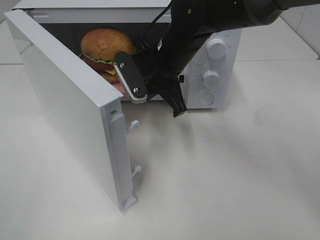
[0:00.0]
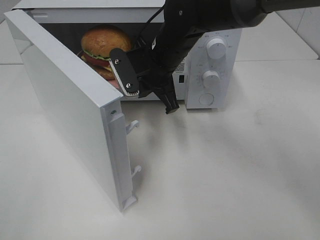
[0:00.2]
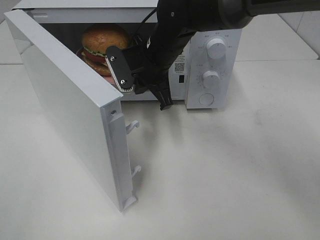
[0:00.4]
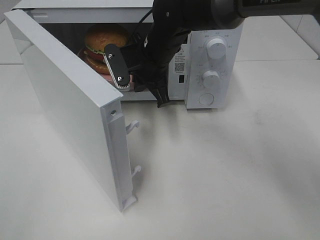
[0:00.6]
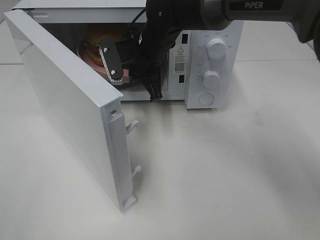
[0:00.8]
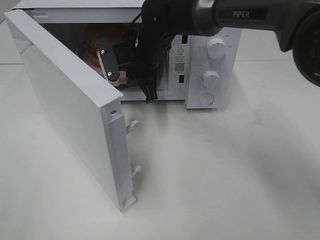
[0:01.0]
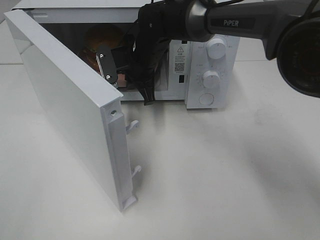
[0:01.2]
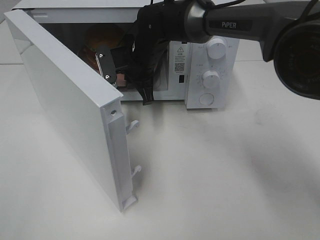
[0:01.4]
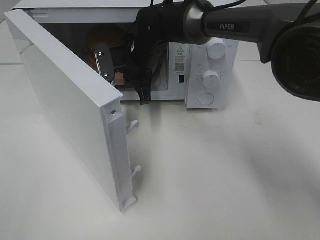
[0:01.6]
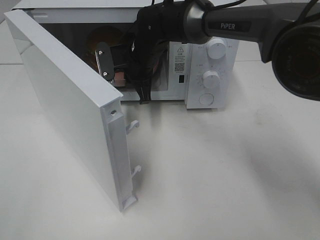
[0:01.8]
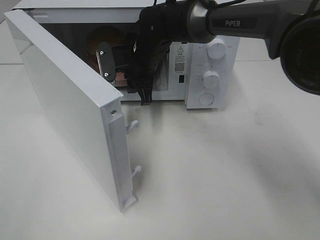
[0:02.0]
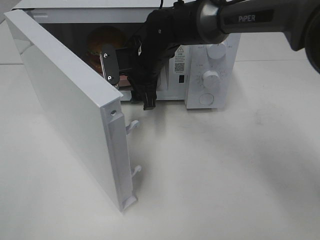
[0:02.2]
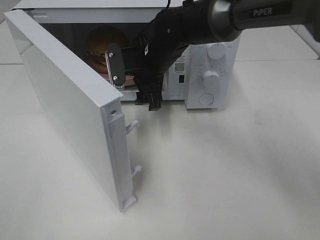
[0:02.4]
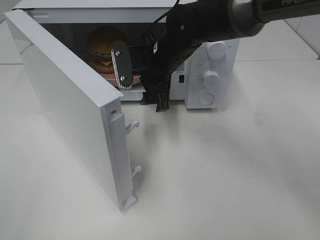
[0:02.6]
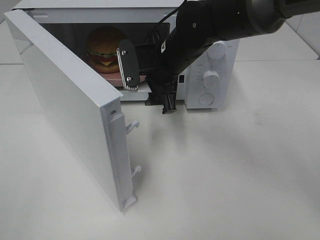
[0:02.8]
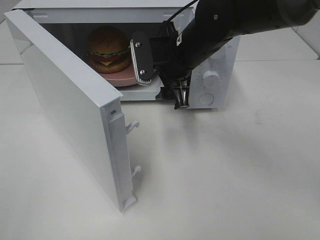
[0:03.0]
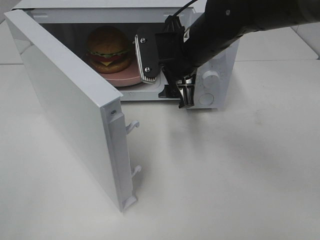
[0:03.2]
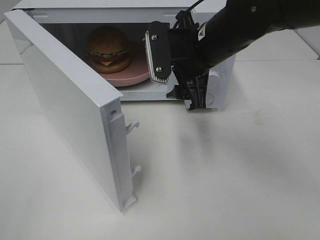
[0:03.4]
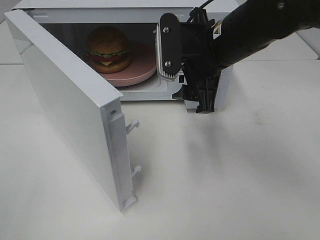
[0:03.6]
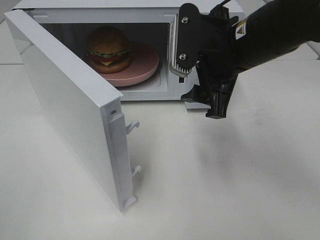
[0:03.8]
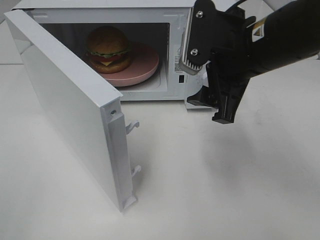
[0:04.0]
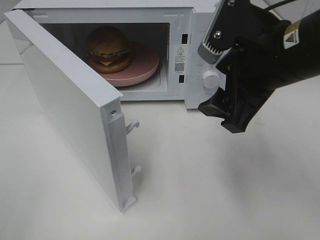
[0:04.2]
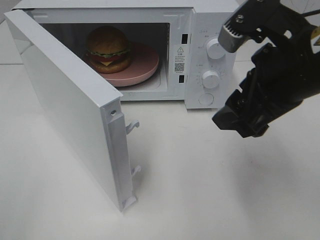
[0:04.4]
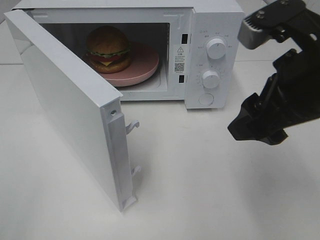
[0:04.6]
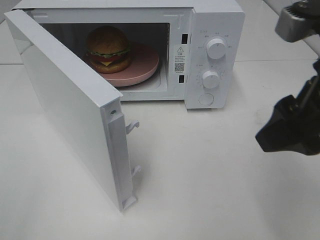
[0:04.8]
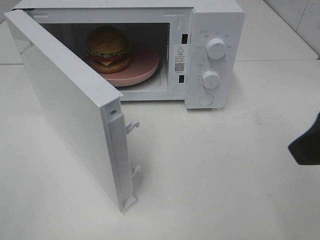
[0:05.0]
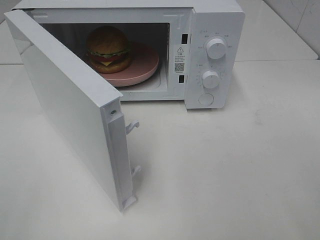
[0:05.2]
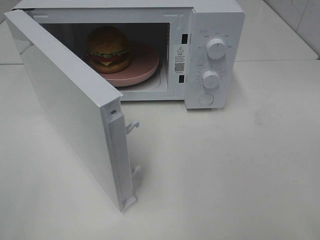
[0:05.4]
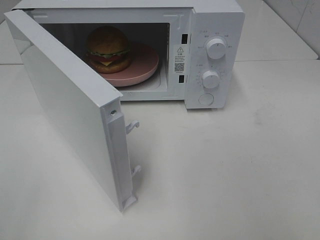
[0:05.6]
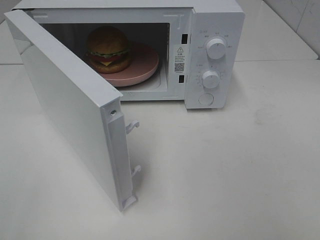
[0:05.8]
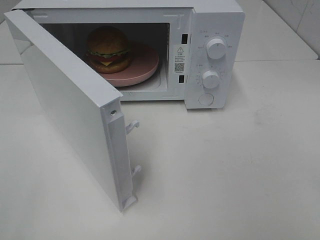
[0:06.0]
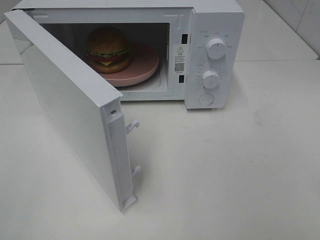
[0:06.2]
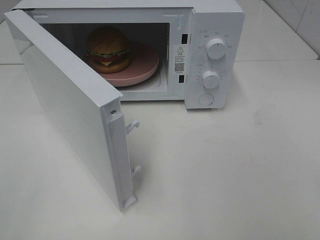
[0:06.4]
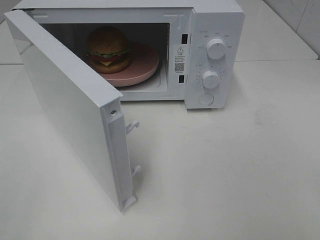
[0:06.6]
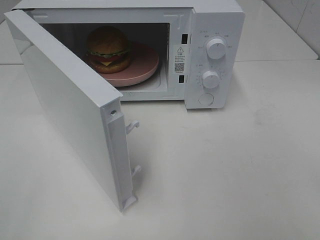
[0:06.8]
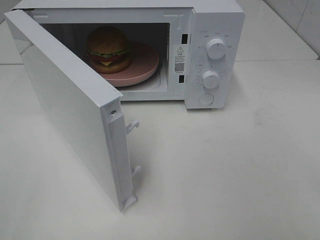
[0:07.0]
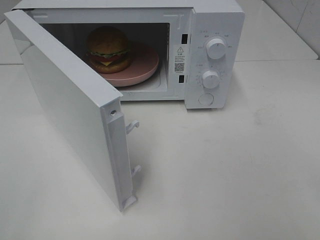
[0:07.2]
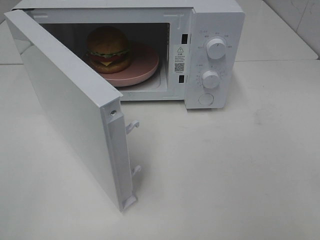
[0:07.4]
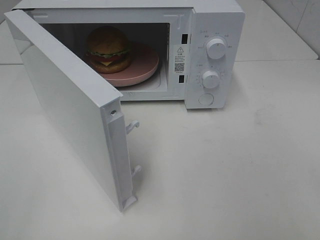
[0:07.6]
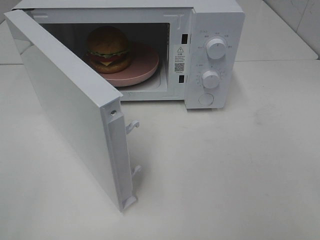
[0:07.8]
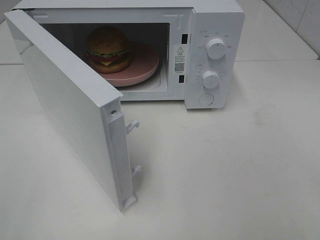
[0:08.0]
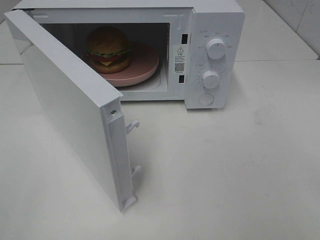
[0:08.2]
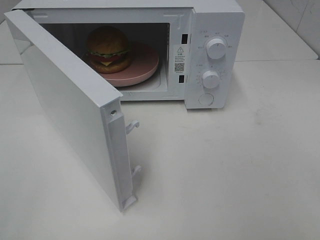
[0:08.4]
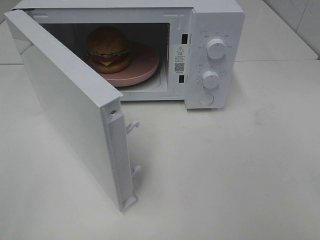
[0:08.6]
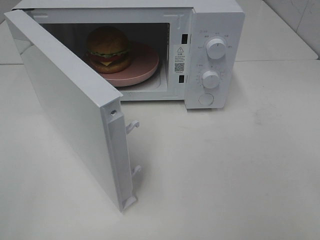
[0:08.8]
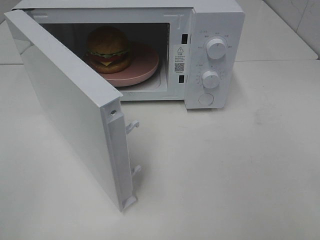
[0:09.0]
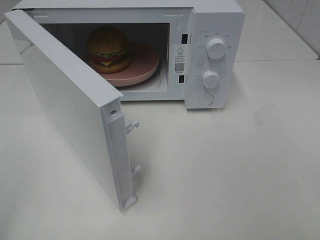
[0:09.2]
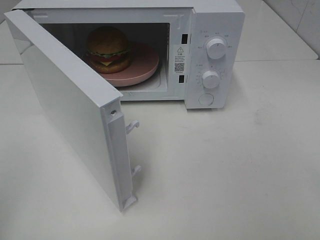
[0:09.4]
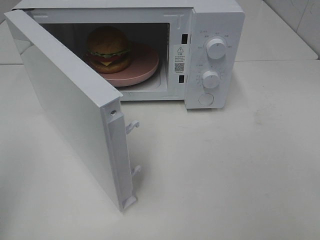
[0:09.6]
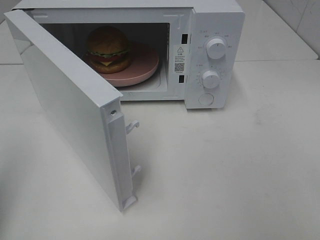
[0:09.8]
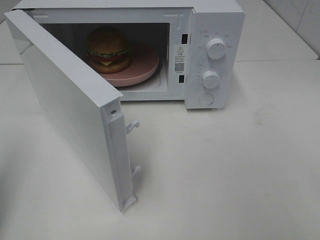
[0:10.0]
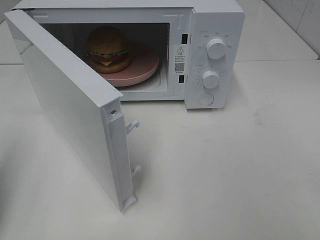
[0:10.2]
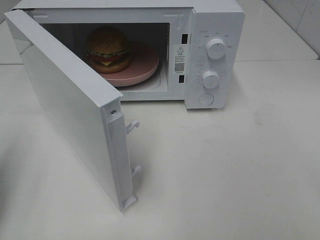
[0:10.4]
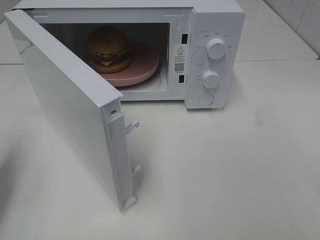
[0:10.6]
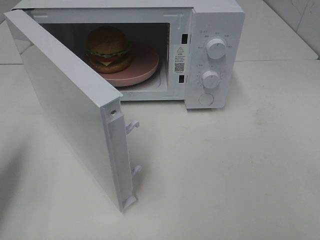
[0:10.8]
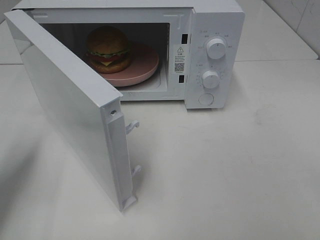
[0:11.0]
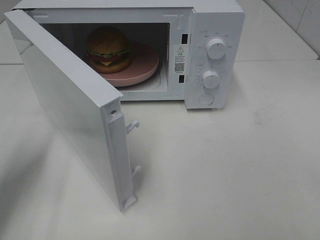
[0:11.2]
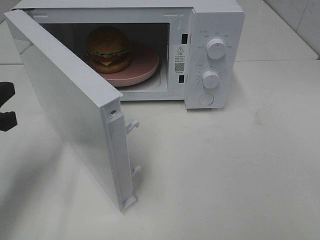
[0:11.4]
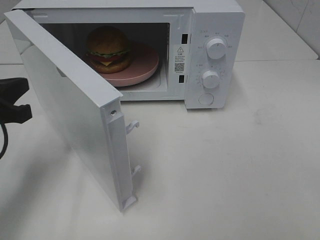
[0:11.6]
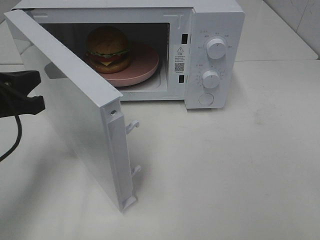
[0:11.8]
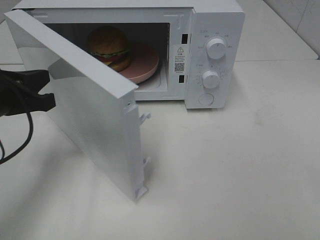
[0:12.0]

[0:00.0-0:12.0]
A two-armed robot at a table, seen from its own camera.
Task of the whole recording: Heat the burger.
0:00.0 to 0:01.6: The right gripper goes roughly 10 cm forward.
0:01.6 to 0:03.0: The right gripper travels backward and to the right by some 10 cm, and opens.
0:03.0 to 0:04.4: The right gripper heads backward, to the right and upward, covering some 20 cm.
0:04.4 to 0:06.0: The right gripper heads backward and to the right, covering roughly 25 cm.
0:09.0 to 0:10.4: The left gripper goes some 15 cm forward and downward, and closes its fingers.
0:10.4 to 0:12.0: The left gripper heads to the right and forward, covering some 15 cm.

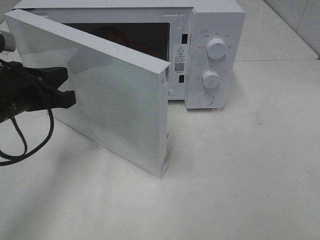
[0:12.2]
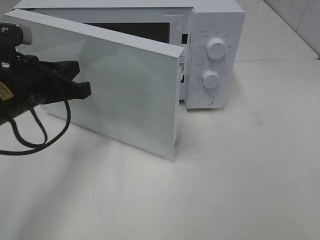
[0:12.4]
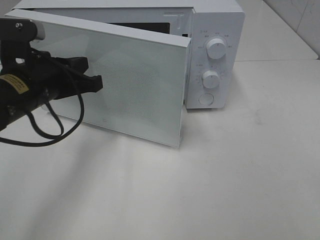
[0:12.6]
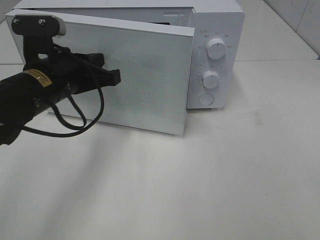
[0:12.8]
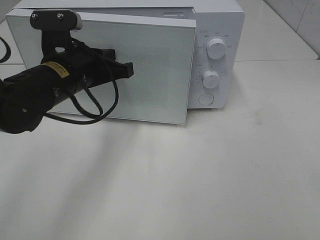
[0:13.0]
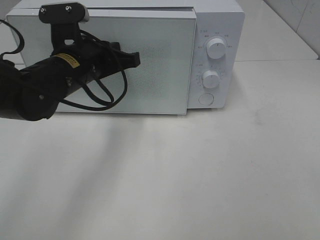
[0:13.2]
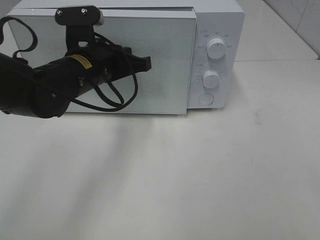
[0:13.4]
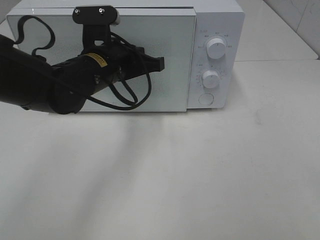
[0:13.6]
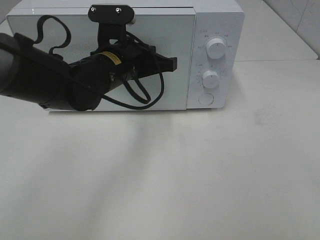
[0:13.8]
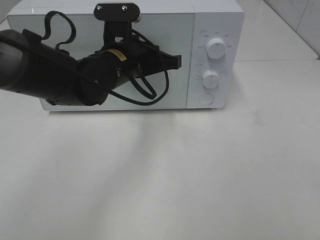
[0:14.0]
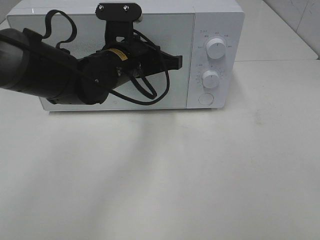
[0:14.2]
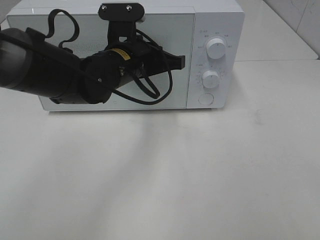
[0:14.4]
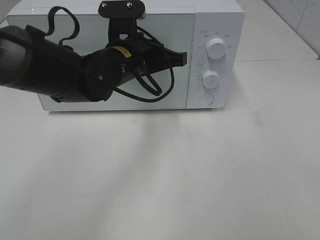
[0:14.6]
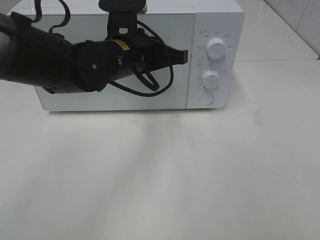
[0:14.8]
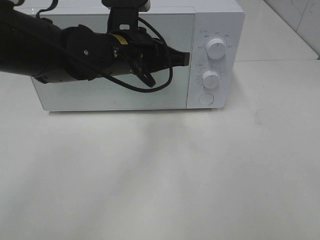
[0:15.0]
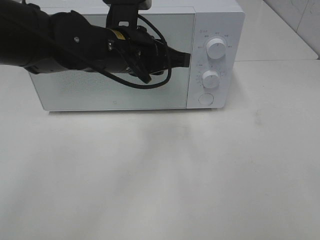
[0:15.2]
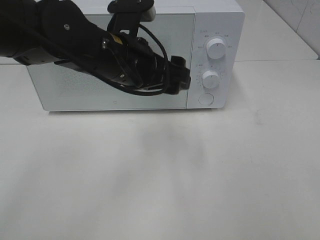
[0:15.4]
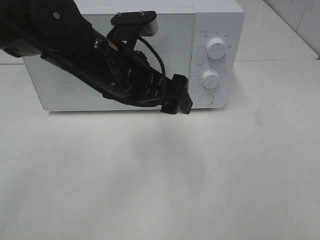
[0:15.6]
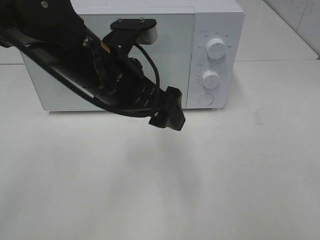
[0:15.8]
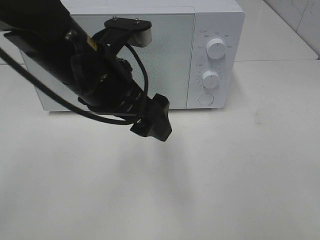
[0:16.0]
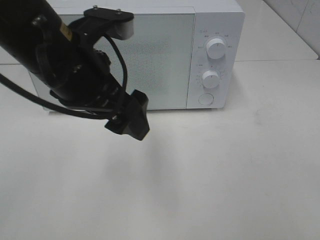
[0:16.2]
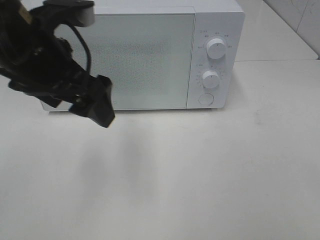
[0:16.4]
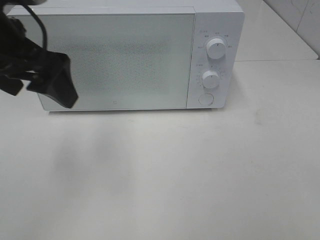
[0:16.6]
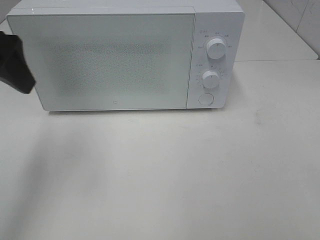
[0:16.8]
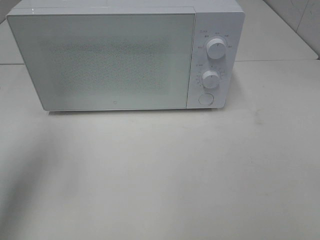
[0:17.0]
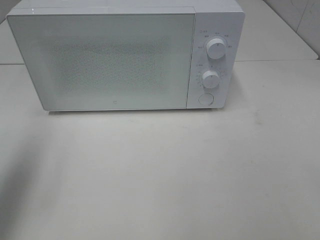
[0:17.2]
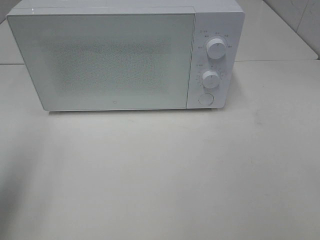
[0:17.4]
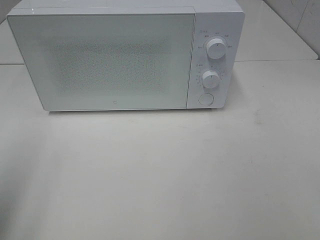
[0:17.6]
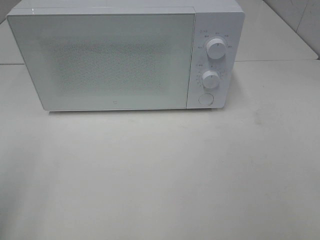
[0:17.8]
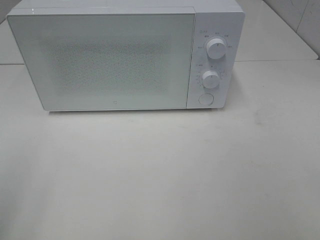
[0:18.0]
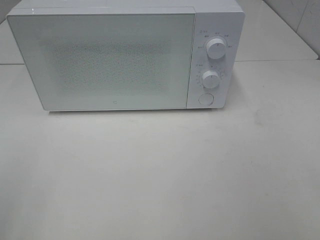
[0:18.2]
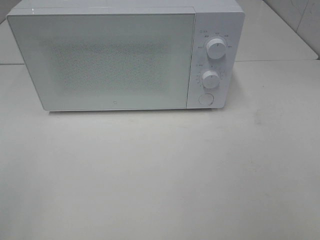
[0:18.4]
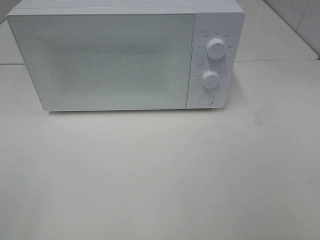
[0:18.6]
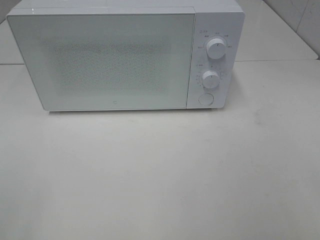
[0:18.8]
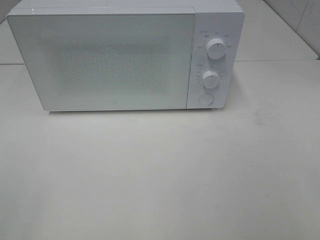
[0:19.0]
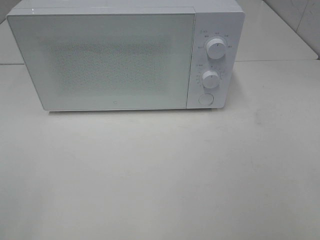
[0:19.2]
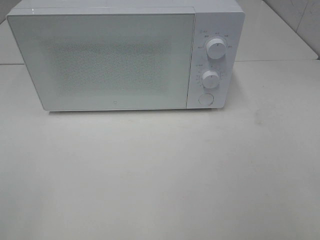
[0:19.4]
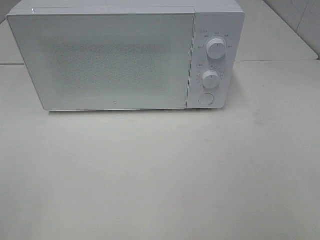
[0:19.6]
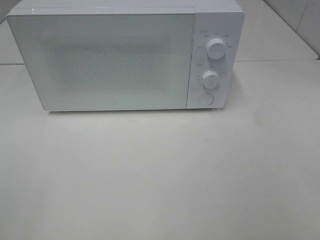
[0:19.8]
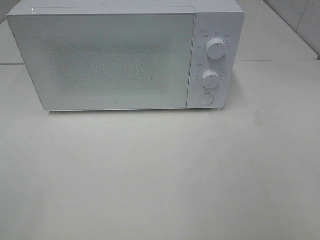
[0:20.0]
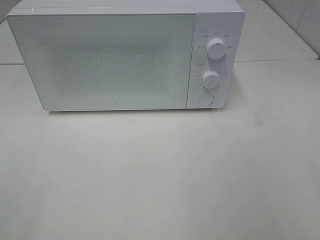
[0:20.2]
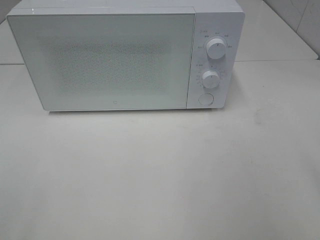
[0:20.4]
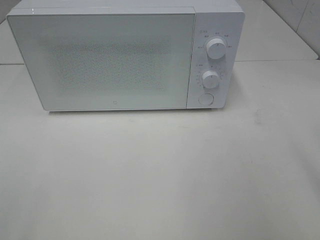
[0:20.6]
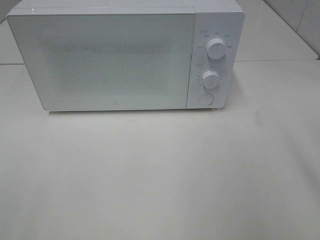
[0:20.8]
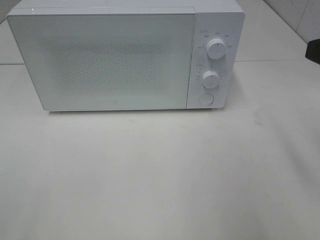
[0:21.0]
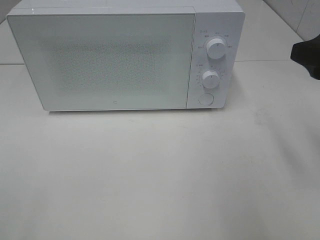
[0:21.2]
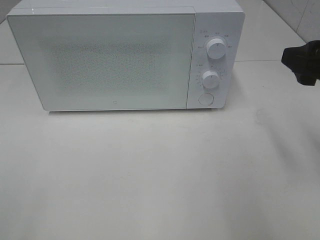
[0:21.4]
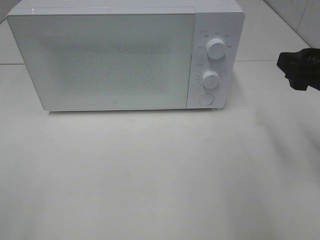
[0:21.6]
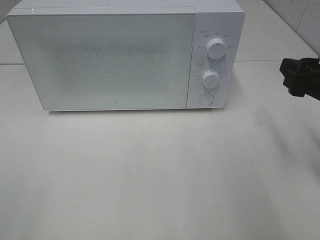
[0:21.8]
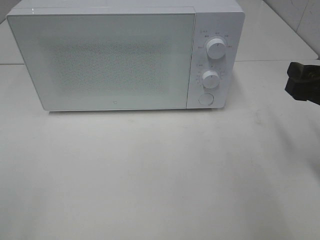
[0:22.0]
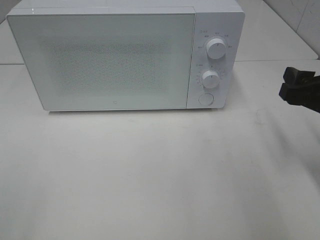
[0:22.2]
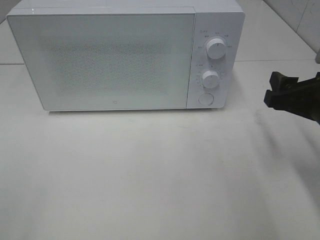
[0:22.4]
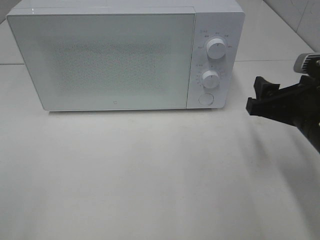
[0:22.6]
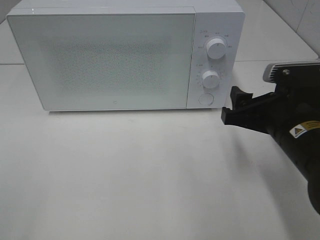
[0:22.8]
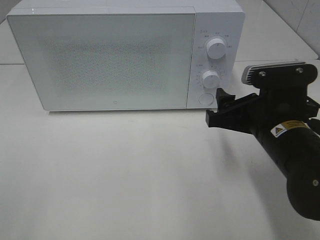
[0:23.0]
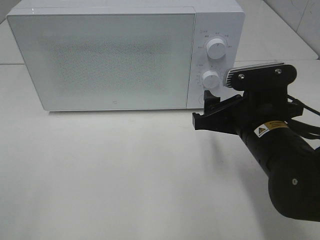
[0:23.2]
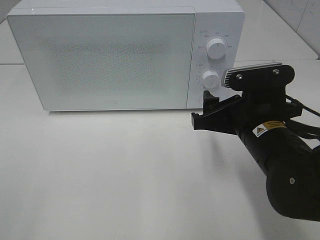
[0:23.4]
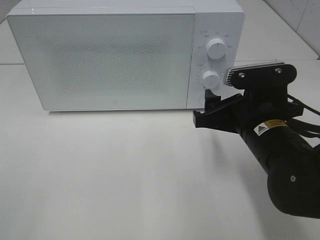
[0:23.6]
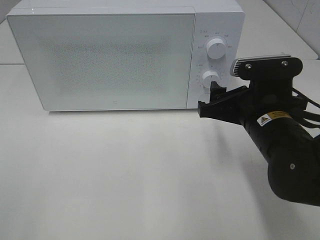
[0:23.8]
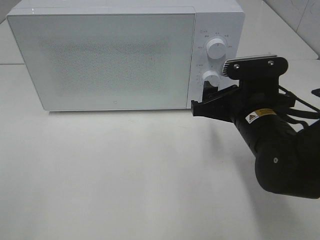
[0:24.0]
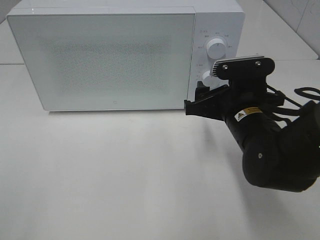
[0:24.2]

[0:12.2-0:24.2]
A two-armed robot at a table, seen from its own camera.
Task of the whole recording: Heat the burger.
Step, 0:12.2 to 0:14.6: Left hand: close the microwave door.
0:12.2 to 0:13.8: The left gripper heads to the right and forward, covering some 15 cm.
0:13.8 to 0:15.2: The left gripper moves approximately 5 cm, and opens up.
0:15.2 to 0:16.6: The left gripper moves to the left and upward, roughly 15 cm, and opens its fingers.
0:16.6 to 0:18.2: The left gripper shifts roughly 25 cm backward and to the left.
0:19.8 to 0:21.2: The right gripper shifts approximately 20 cm forward.
0:21.2 to 0:22.6: The right gripper is displaced downward by some 10 cm.
0:22.6 to 0:24.2: The right gripper heads to the left and forward, covering approximately 10 cm.
